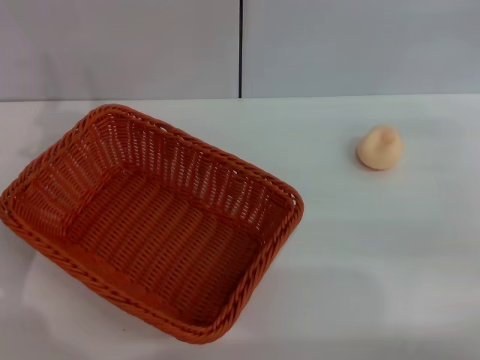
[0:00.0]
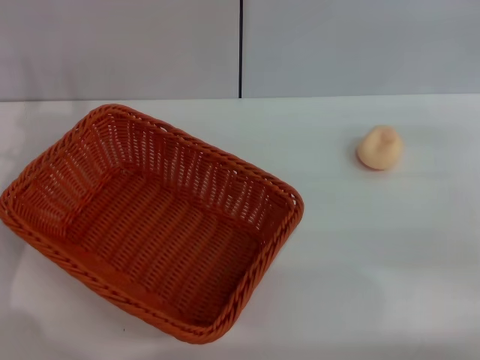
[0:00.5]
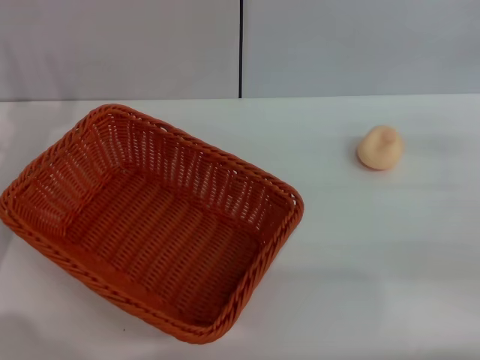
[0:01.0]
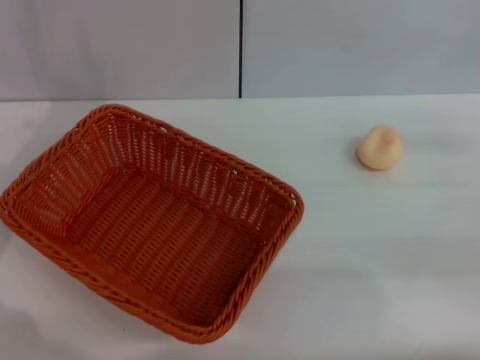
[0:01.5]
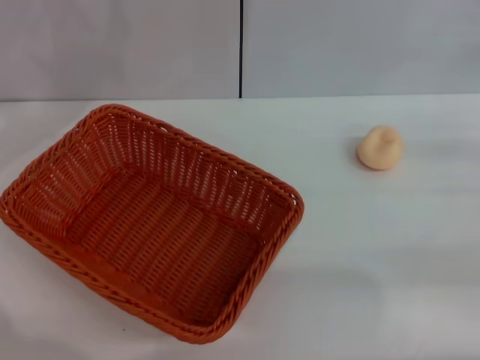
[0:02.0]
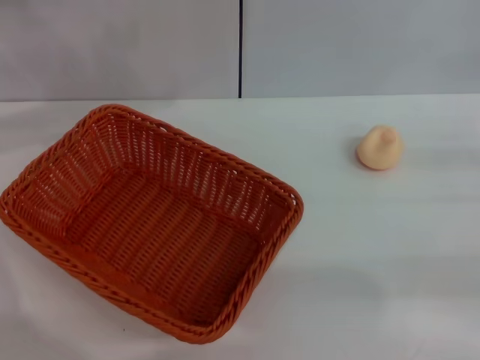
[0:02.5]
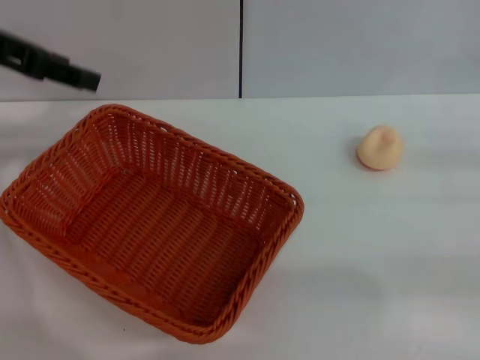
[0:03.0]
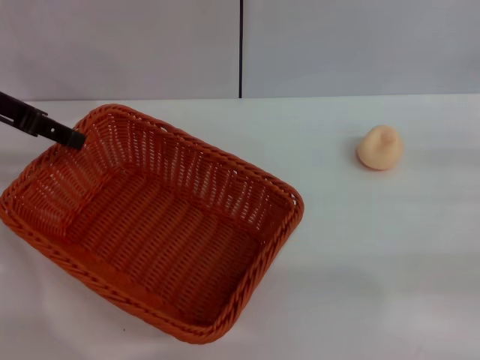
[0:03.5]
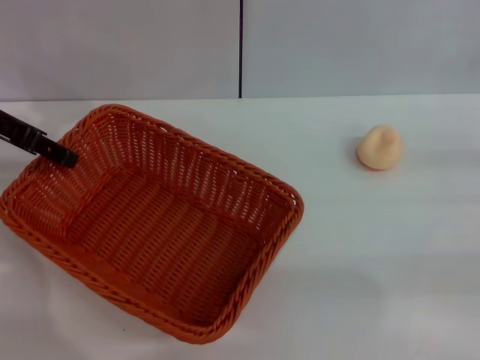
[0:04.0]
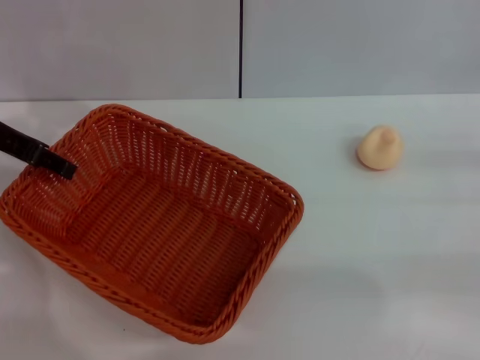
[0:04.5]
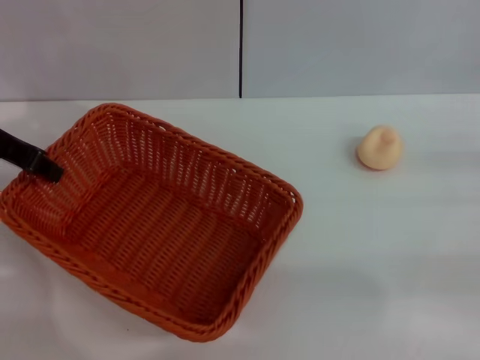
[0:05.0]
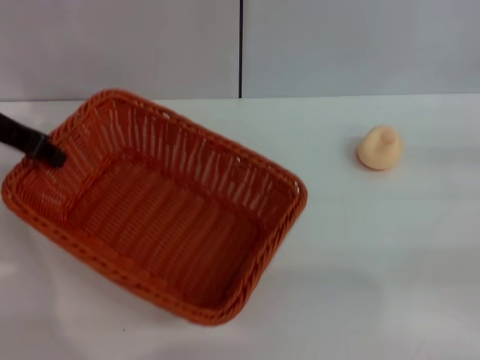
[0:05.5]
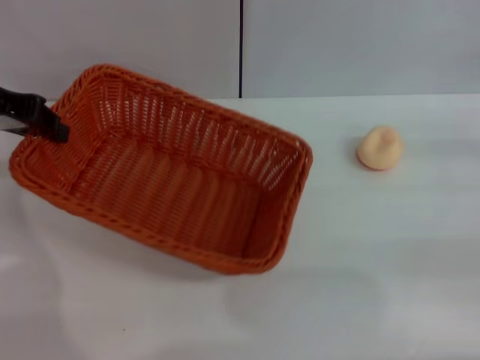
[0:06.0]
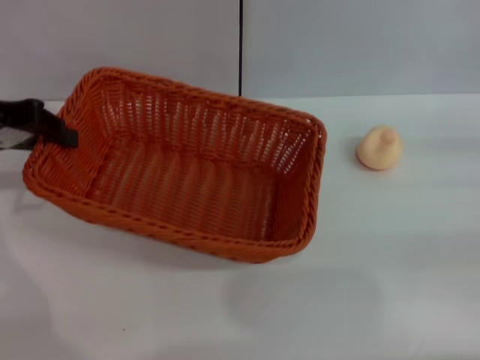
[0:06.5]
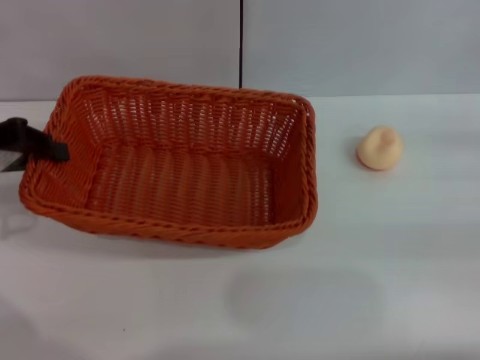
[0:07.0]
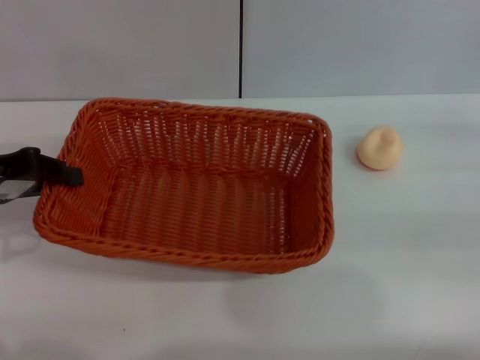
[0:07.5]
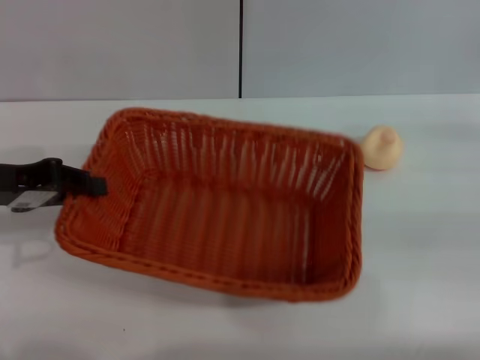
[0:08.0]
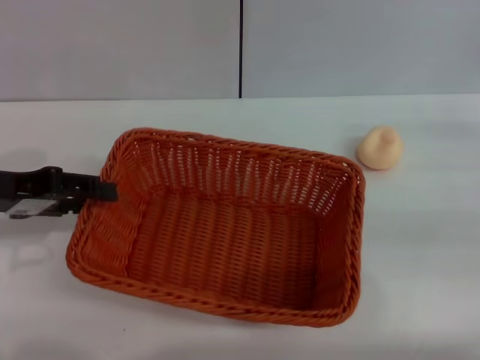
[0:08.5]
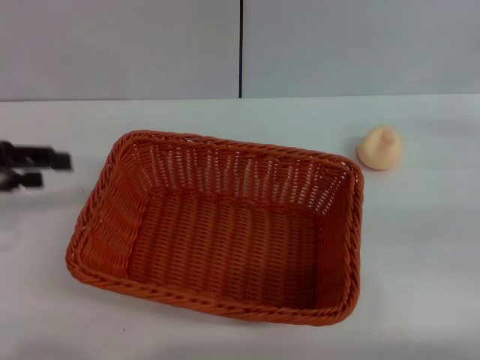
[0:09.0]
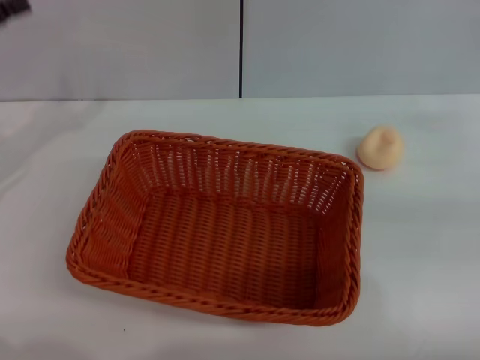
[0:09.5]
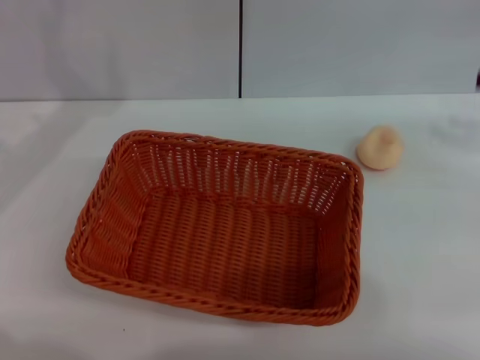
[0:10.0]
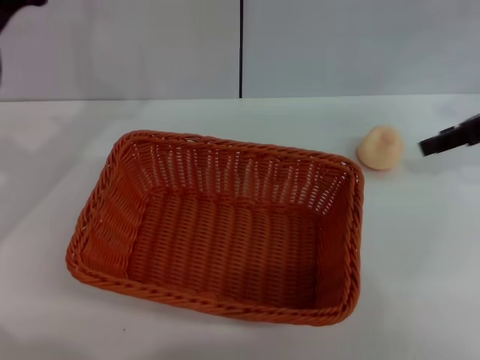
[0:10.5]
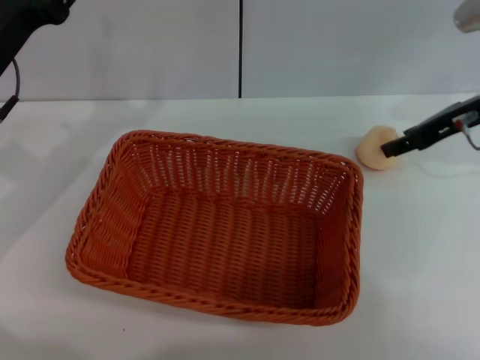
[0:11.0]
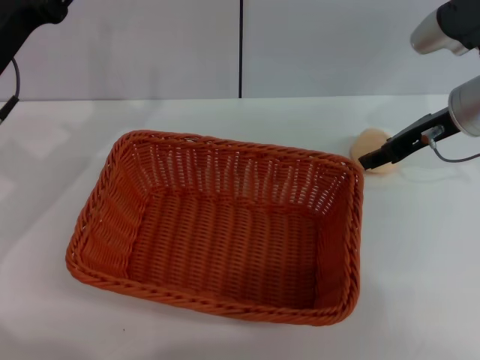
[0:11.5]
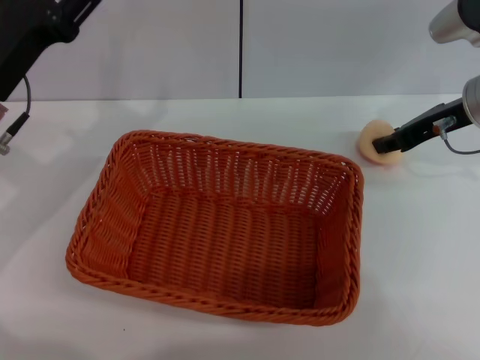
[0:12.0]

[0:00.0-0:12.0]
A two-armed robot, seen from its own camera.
Step, 0:00.0 to 0:08.5: Move the basket to the center of view with the left gripper.
0:00.0 to 0:02.0: The left gripper travels upward and forward by some 15 cm.
0:04.0 to 0:06.0: The left gripper closes.
0:06.0 to 0:08.0: The left gripper is displaced backward and downward by approximately 10 cm.
0:08.0 to 0:10.0: The right gripper goes approximately 10 cm upward and forward. Meanwhile the left gripper moves forward, roughly 5 cm, and opens its fingers.
0:10.0 to 0:12.0: The left gripper ends up roughly 5 cm from where it was. The right gripper is displaced to the left by some 15 cm, and closes.

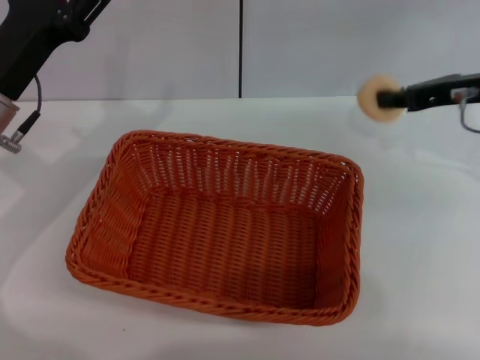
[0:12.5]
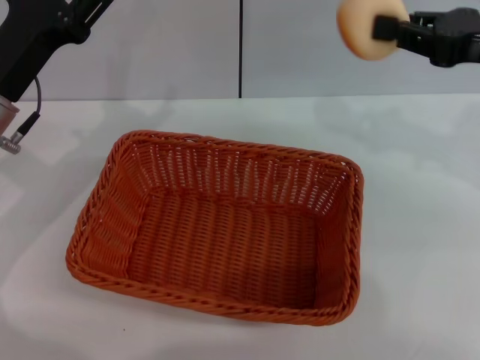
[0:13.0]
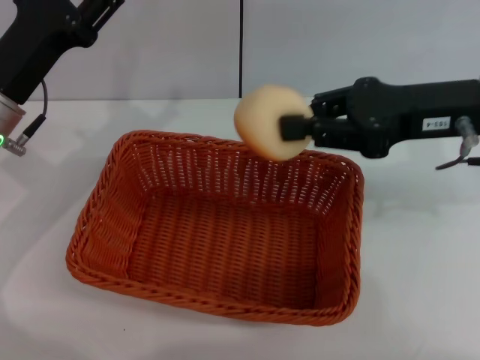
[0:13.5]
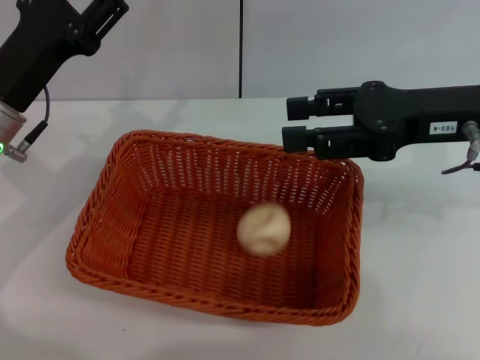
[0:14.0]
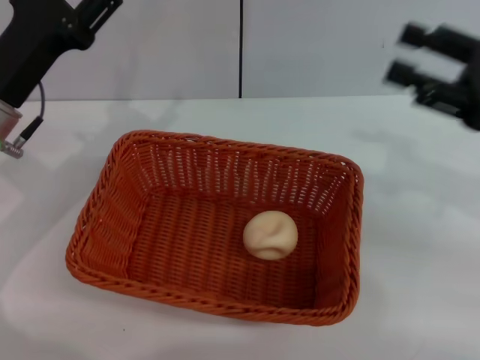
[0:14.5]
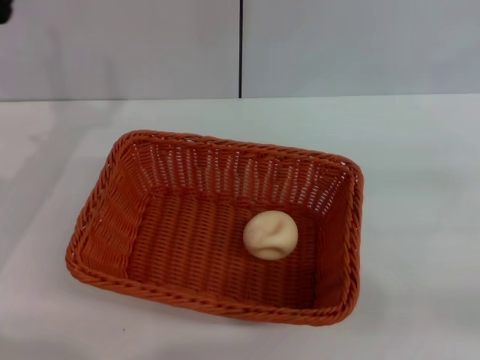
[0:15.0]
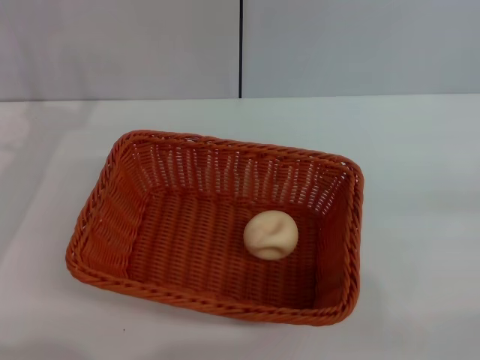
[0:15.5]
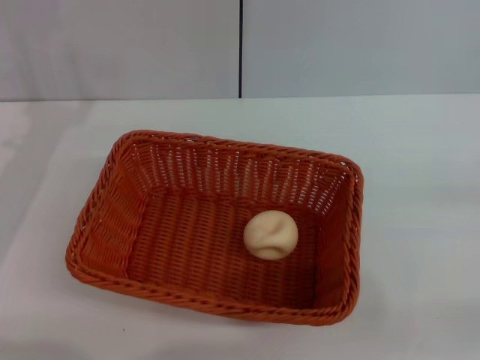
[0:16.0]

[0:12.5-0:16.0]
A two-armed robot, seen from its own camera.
Step, 0:13.0 to 0:14.0: Place the egg yolk pastry into the basket with the right gripper.
0:12.5 to 0:14.5: The right gripper is displaced backward by roughly 10 cm, and opens.
0:14.5 to 0:16.0: The left gripper changes place by approximately 5 cm, while the right gripper is displaced to the right, backward and downward by roughly 15 cm.

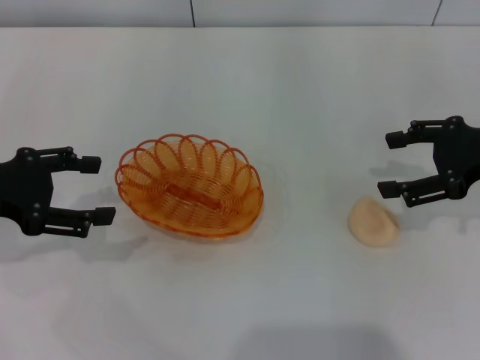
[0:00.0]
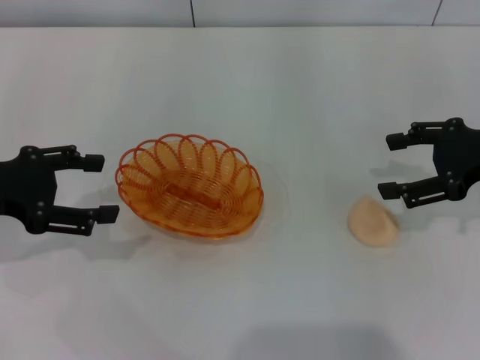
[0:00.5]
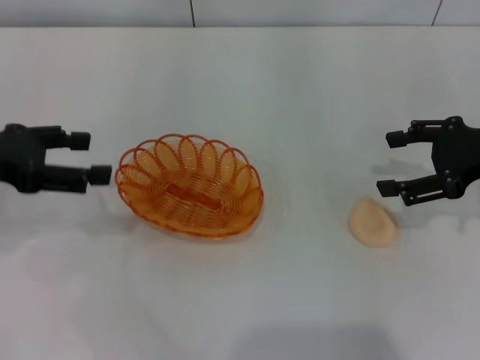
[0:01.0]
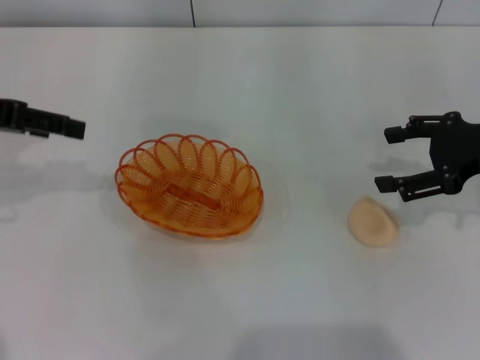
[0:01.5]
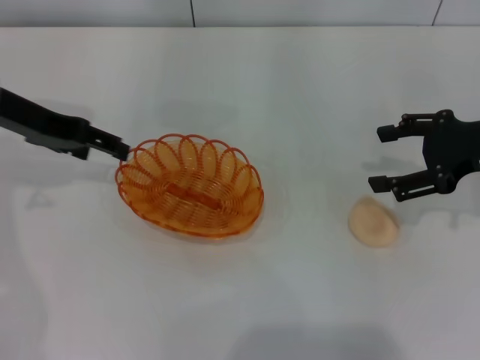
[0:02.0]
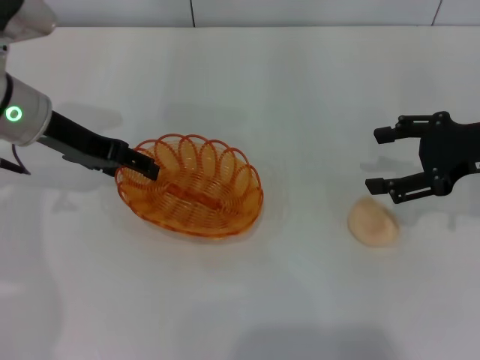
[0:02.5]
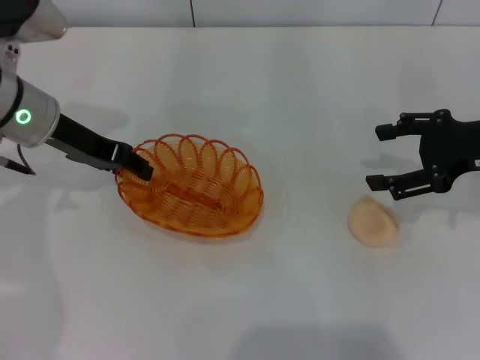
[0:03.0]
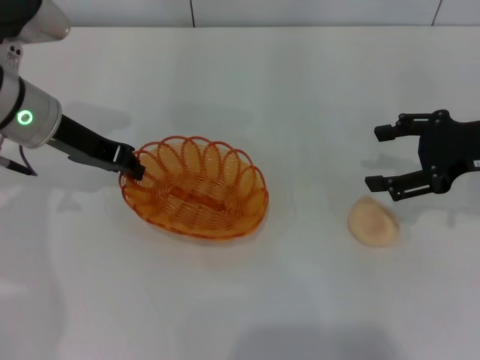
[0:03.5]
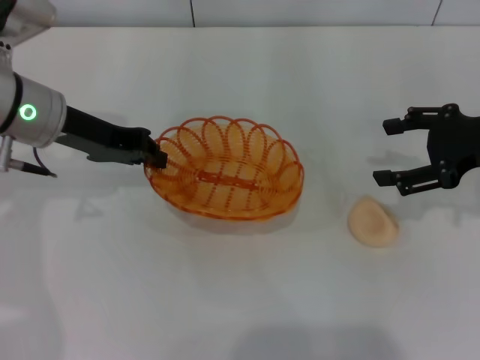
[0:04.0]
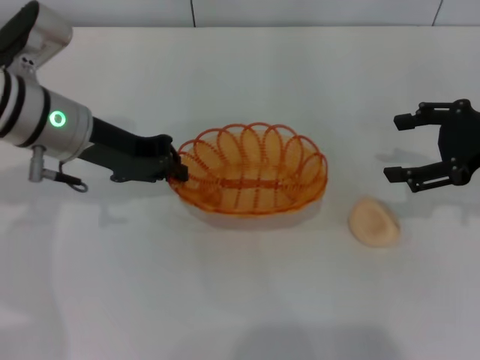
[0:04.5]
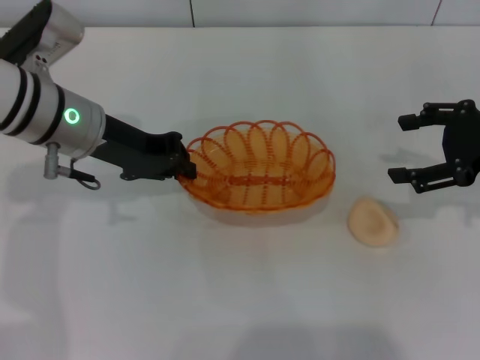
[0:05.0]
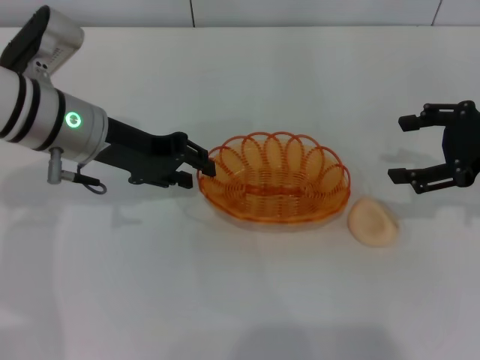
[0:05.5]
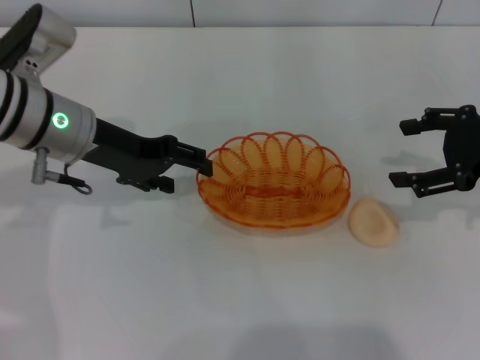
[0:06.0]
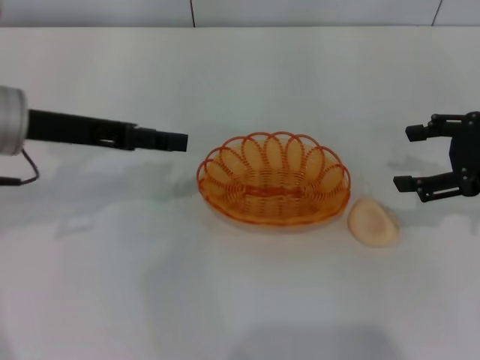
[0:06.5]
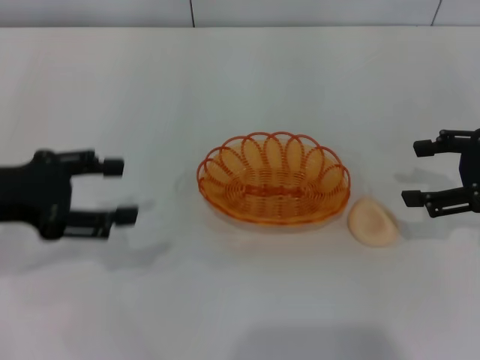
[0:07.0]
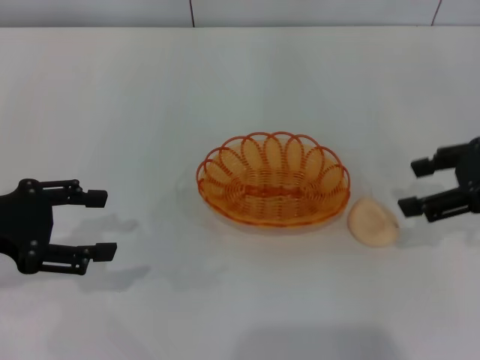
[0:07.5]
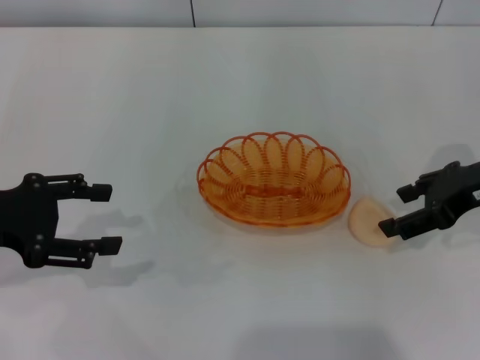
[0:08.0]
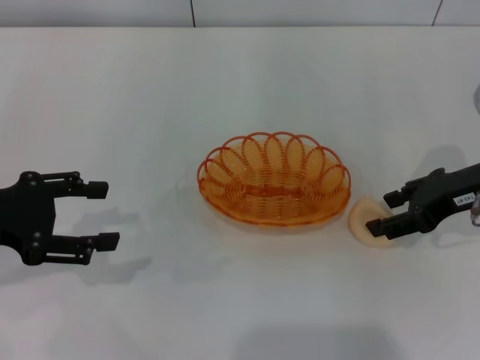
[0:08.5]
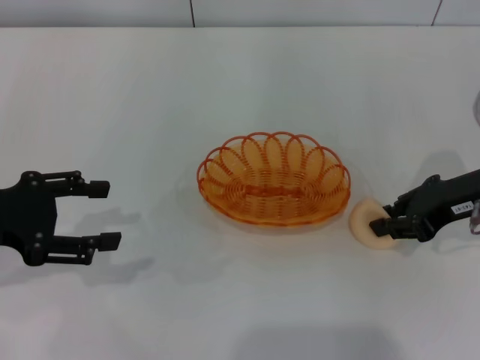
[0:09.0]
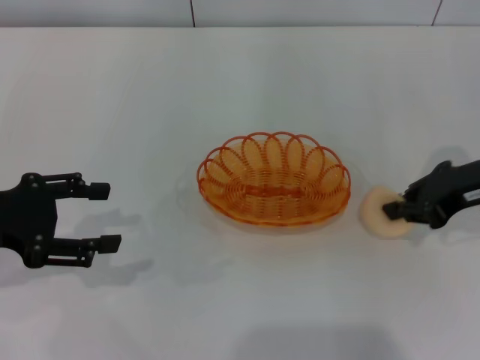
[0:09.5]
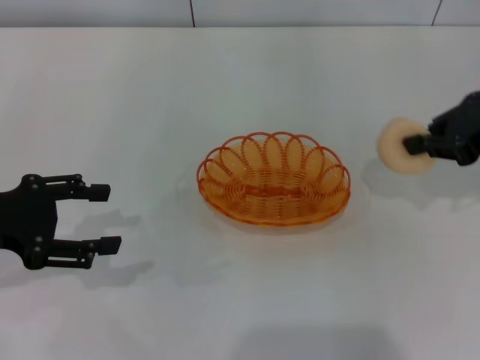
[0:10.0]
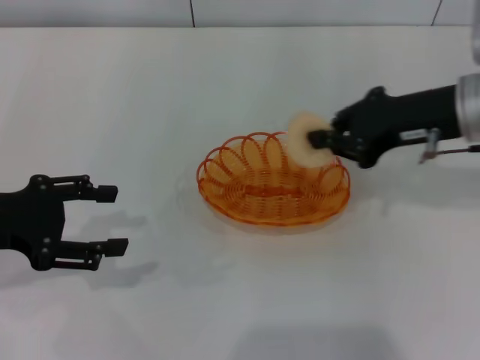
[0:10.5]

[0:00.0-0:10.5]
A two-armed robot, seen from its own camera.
Step, 0:00.0 to 0:04.0: Pick up the basket with the left gripper.
Step, 0:04.5 to 0:06.0: Place the basket in the center of view with the left gripper.
Step, 0:06.5 to 0:09.5: Pick up the egg yolk pastry with the right gripper.
0:00.0 to 0:02.0: The left gripper is displaced forward by roughly 10 cm.
0:02.0 to 0:04.0: The left gripper goes roughly 5 cm to the right, and closes its fingers.
0:04.0 to 0:06.5: The left gripper shifts by some 5 cm, and opens its fingers.
0:06.5 to 0:08.5: The left gripper goes about 10 cm to the left and backward, while the right gripper moves to the left, roughly 5 cm.
0:08.5 to 0:10.5: The right gripper moves some 5 cm, and closes its fingers.
